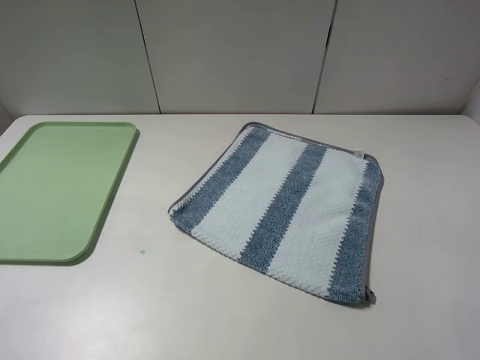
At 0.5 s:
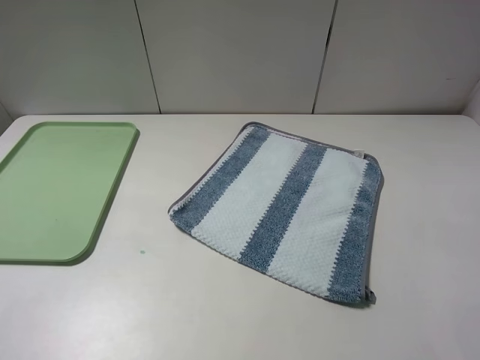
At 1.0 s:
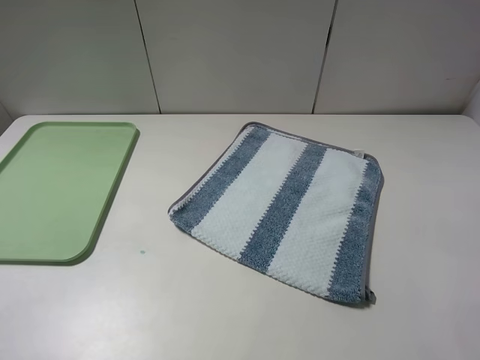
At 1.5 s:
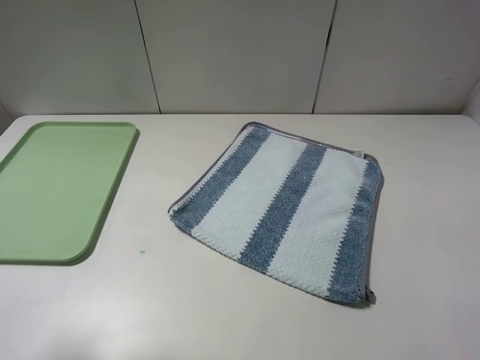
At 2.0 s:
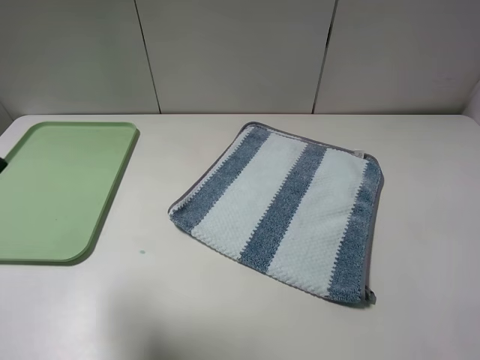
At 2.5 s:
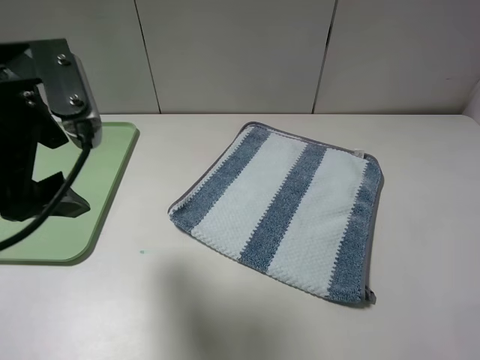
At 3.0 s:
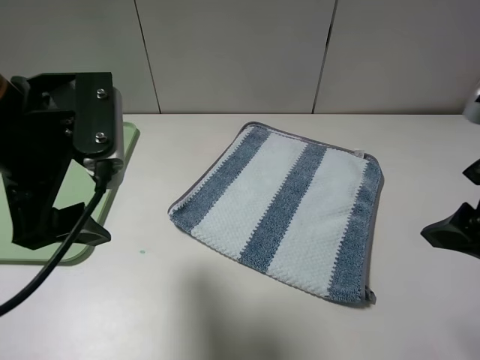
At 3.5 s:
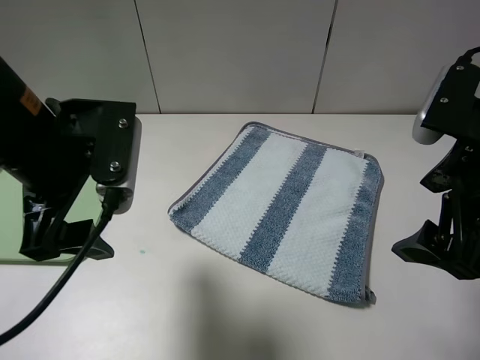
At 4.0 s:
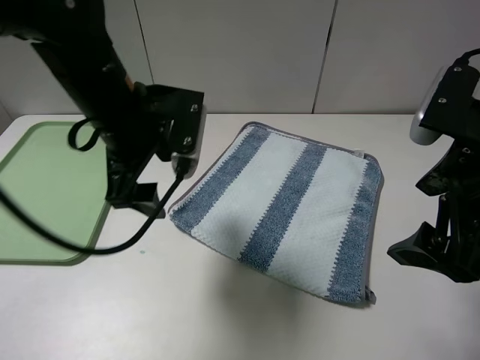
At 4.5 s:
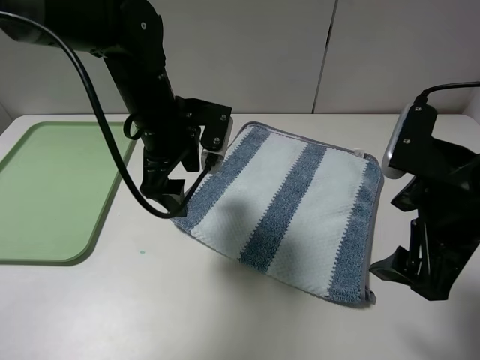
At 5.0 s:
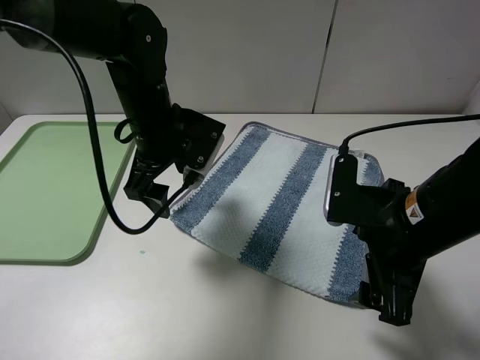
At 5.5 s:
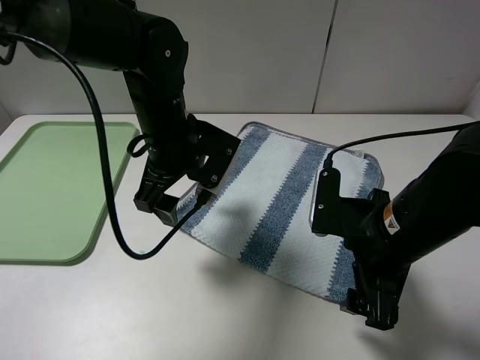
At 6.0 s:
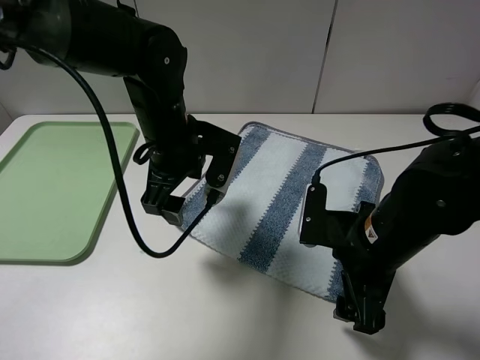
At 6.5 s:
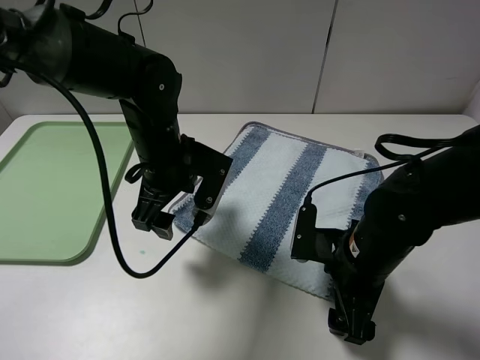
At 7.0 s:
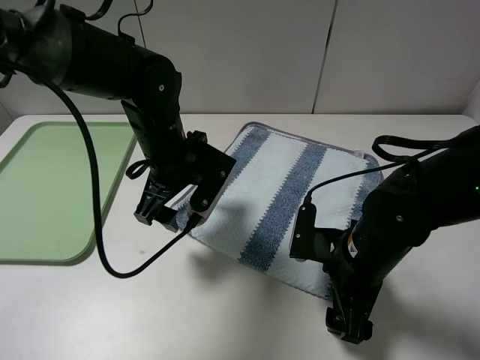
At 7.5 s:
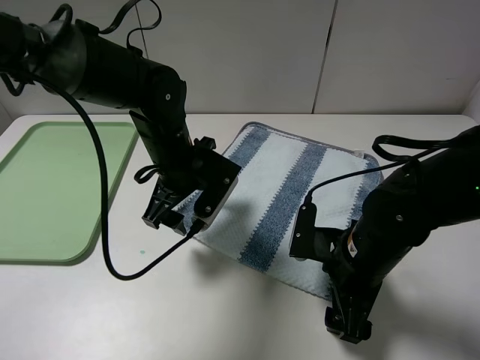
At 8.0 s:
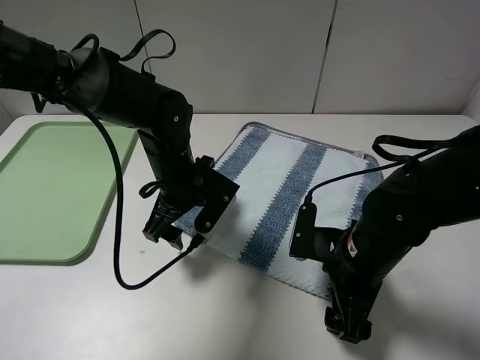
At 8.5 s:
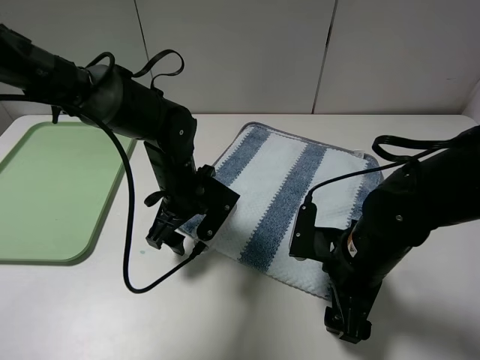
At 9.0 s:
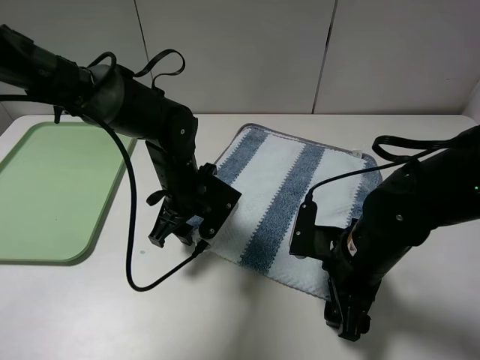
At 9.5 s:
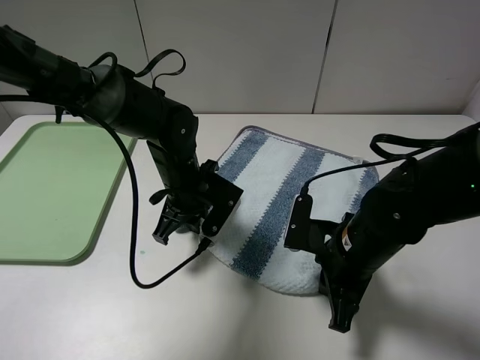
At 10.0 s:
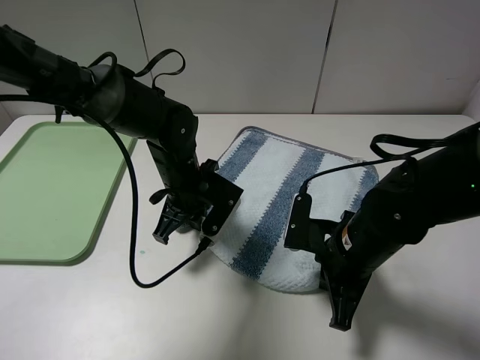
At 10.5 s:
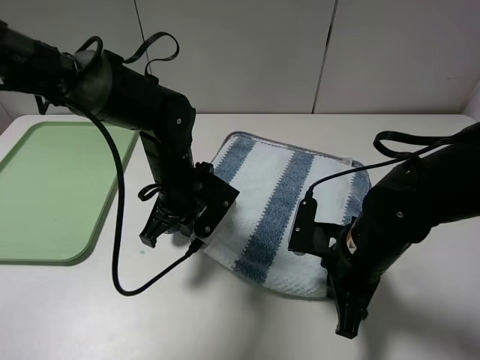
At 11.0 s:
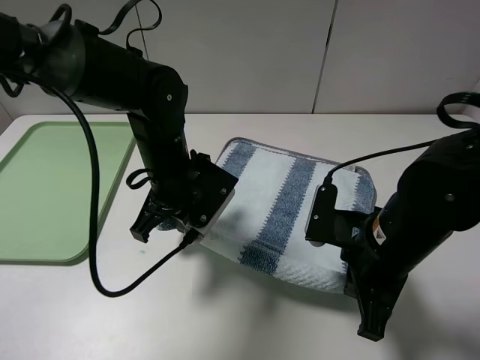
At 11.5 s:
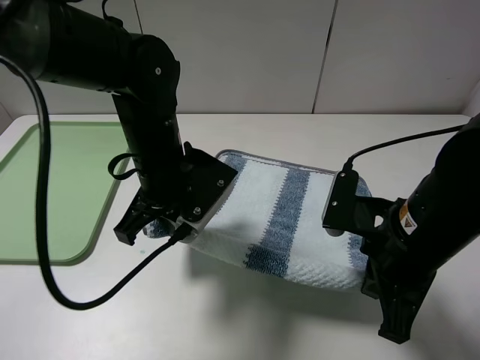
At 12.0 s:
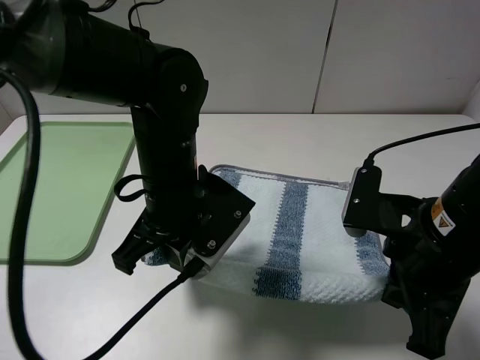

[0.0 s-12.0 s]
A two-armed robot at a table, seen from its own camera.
Step, 0.0 to 9.5 s: Grasp the blue white towel with the left gripper.
0.0 to 2.0 s: The right gripper shifts by about 5 cm. The left gripper moves forward, about 15 cm.
2.0 to 4.0 s: The left gripper heads to the right, forward and downward, covering roughly 25 cm, while the right gripper moves forward and to the left, roughly 15 cm.
4.0 to 6.0 s: The left gripper heads downward, covering roughly 5 cm. The right gripper shifts some 15 cm downward and to the left.
6.0 to 8.0 s: The left gripper heads downward, covering roughly 5 cm.
8.0 to 10.0 s: The right gripper closes up; the left gripper closes up.
10.0 to 12.0 s: The left gripper goes roughly 10 cm upward and backward, while the right gripper shifts about 10 cm upward.

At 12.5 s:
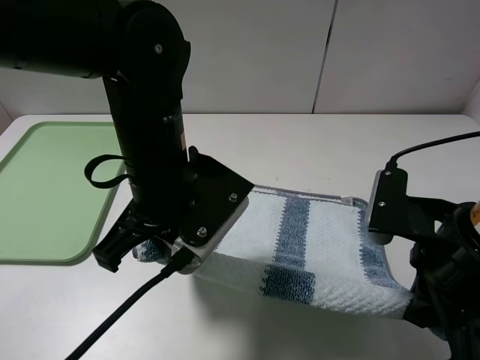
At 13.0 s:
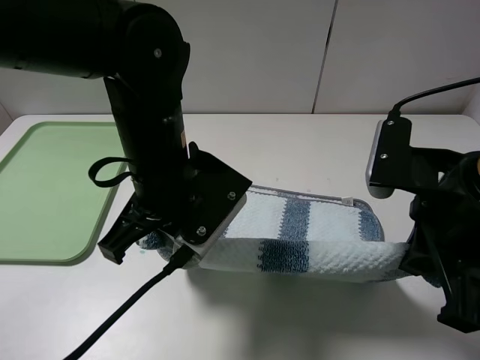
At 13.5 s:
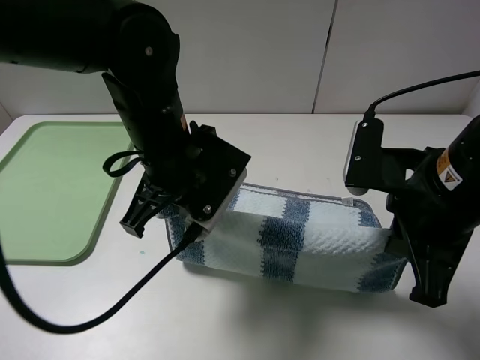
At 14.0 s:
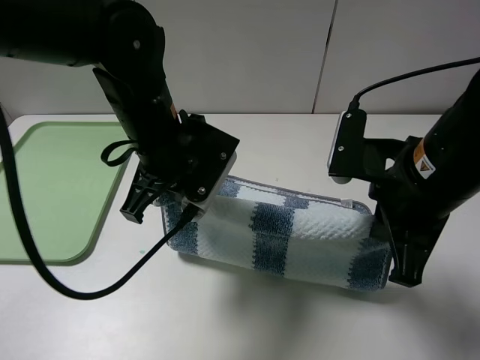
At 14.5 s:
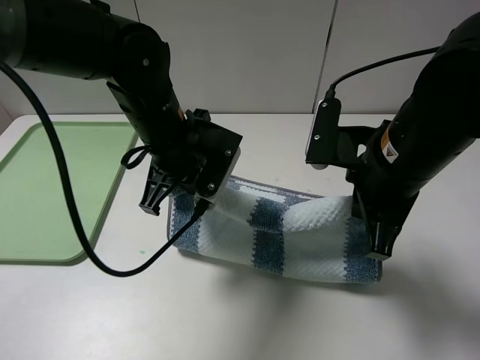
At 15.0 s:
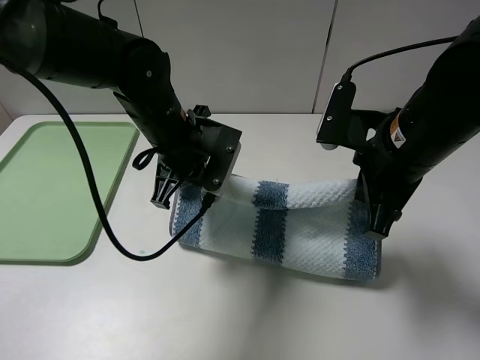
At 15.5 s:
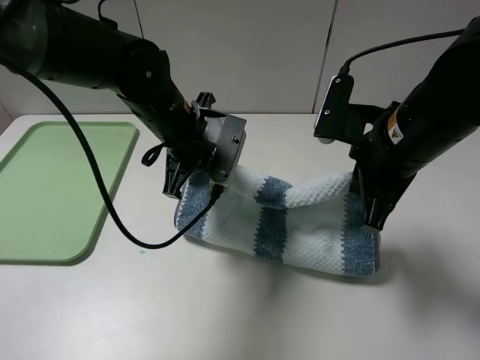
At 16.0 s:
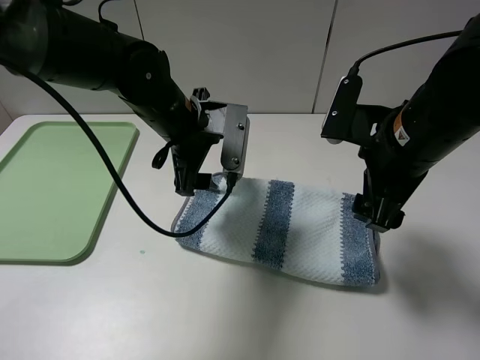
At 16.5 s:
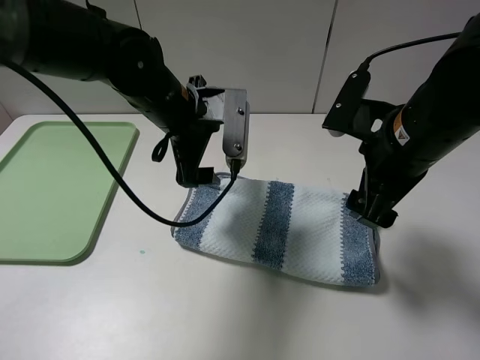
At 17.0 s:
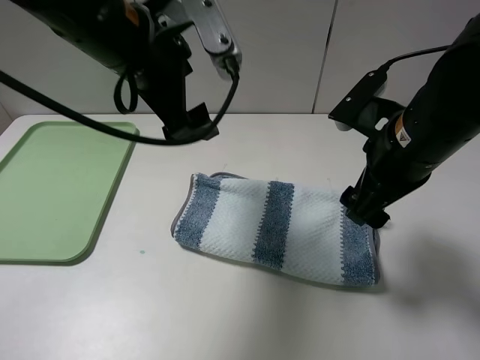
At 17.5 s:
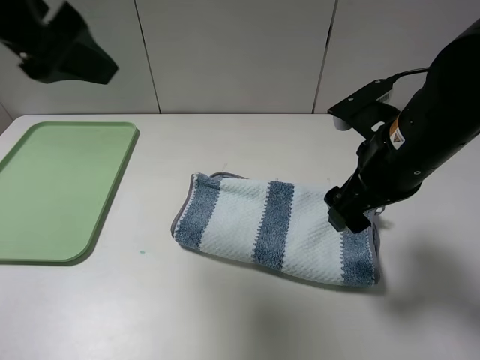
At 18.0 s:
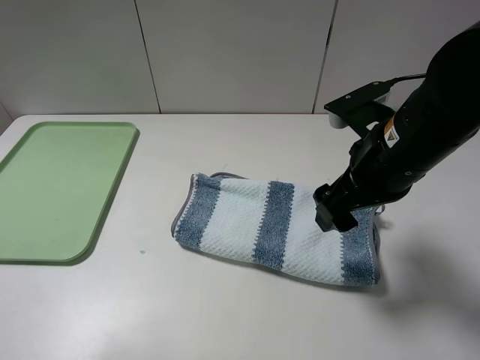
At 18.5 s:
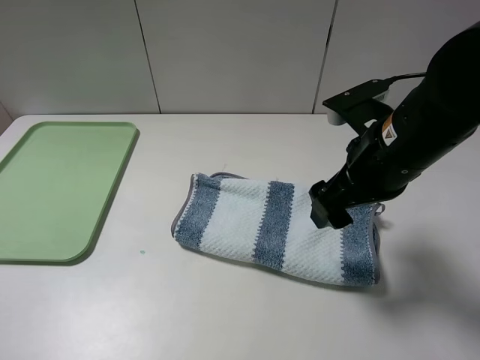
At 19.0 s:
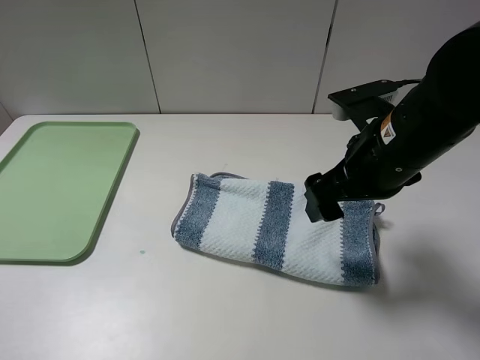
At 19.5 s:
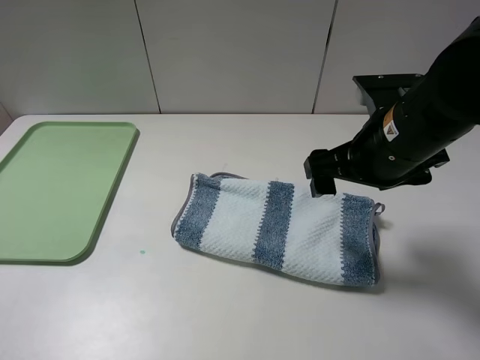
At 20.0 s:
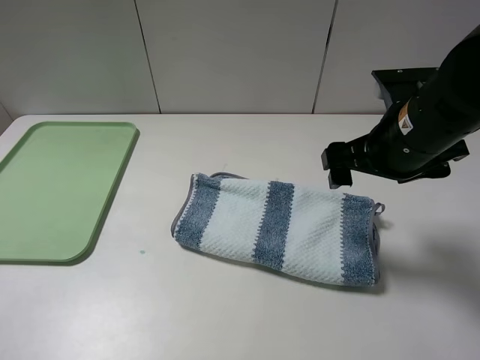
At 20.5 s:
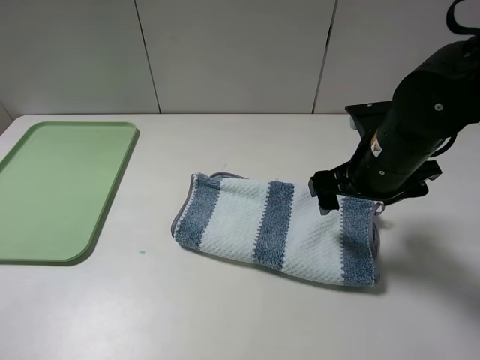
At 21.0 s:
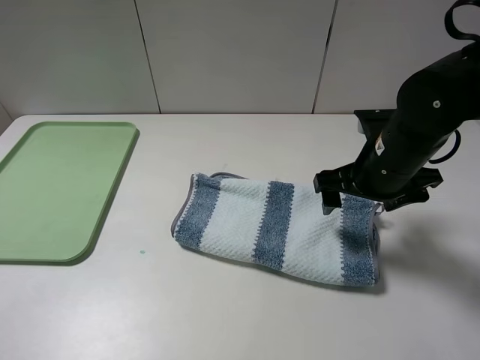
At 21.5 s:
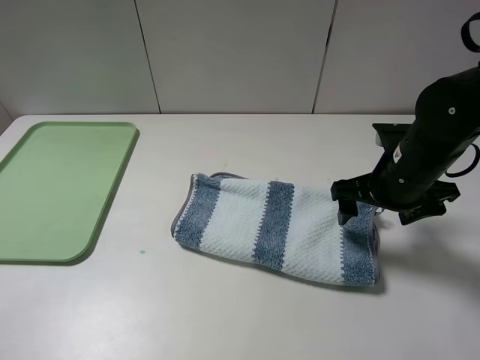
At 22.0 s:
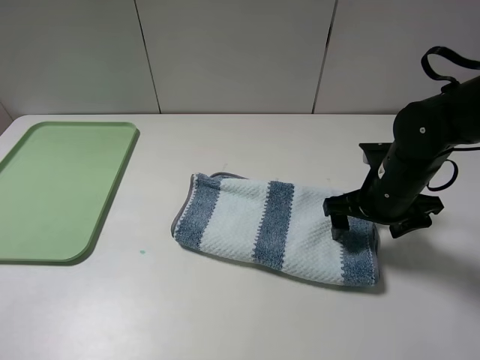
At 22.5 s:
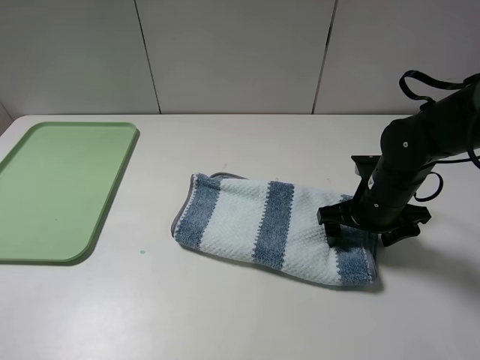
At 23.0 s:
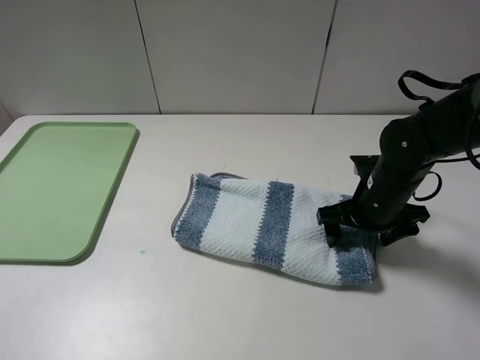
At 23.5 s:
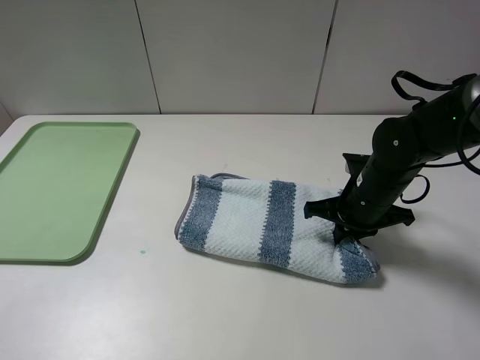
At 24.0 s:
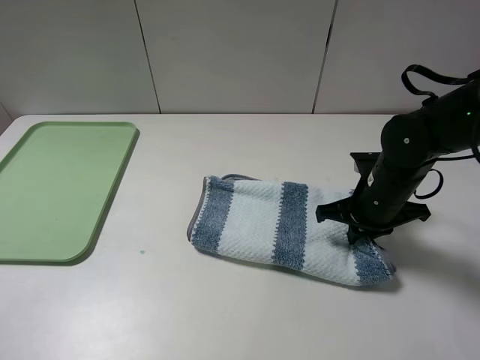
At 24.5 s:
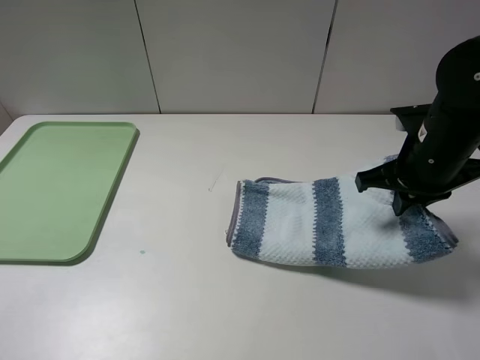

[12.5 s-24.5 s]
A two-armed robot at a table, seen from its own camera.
Step, 12.5 to 16.0 s: Fold the blue white towel upwards with the left gripper.
Step, 16.5 to 24.0 s: Grasp the blue white towel with the right gripper.
12.5 to 14.5 s: Both grippers move forward, approximately 10 cm.
14.5 to 16.5 s: The left gripper opens its fingers. The right gripper opens.
16.5 to 18.5 s: The left gripper moves backward and to the left, about 40 cm.
18.5 to 20.5 s: The right gripper shifts by about 5 cm.
20.5 to 22.5 s: The right gripper is displaced downward by some 10 cm.
22.5 to 24.5 s: The right gripper shifts roughly 10 cm upward, and closes its fingers.

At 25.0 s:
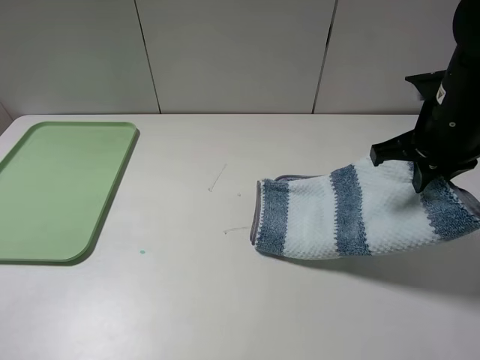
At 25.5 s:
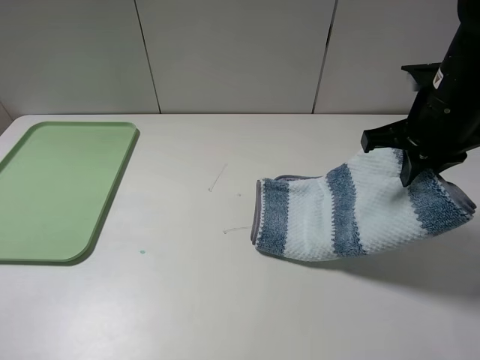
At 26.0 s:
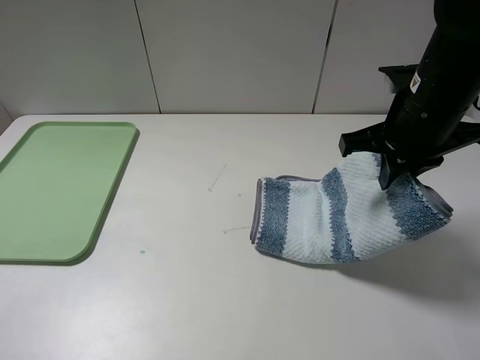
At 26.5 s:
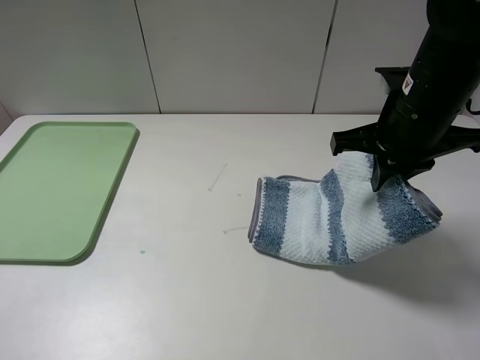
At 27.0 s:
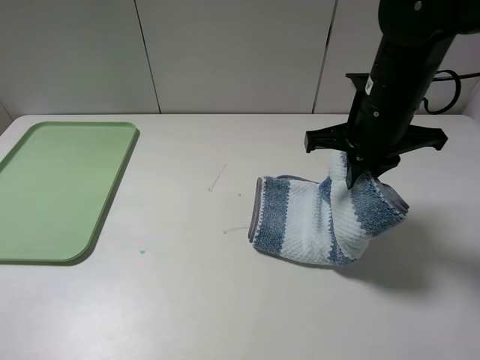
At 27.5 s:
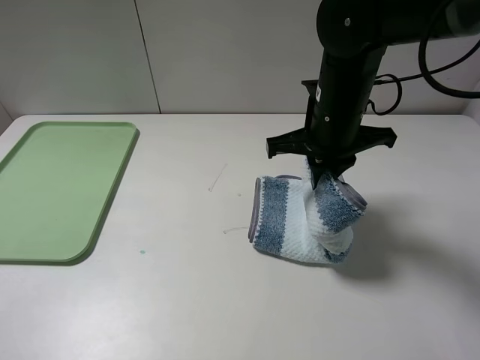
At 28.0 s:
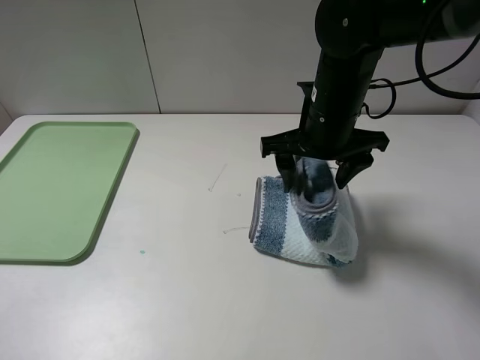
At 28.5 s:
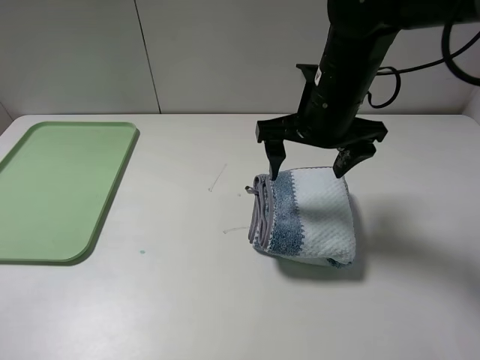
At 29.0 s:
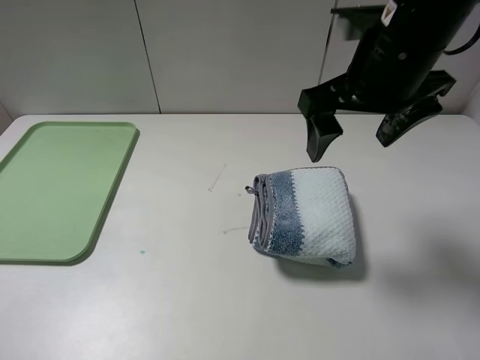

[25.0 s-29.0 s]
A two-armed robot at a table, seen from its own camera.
25.0 to 27.0 s: The right gripper heads to the left, covering approximately 10 cm.
27.0 to 29.0 s: The right gripper moves upward, roughly 10 cm, and opens.
